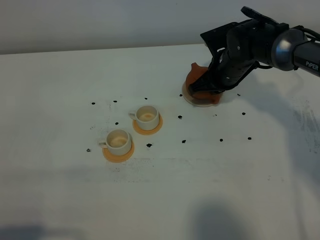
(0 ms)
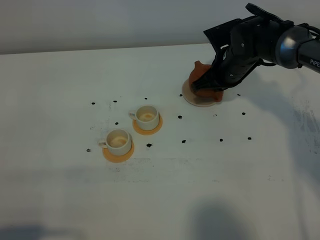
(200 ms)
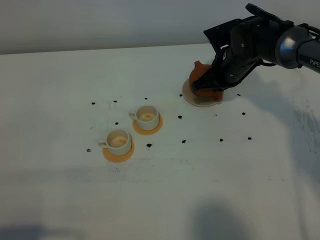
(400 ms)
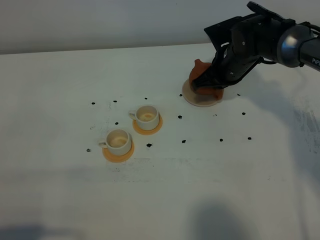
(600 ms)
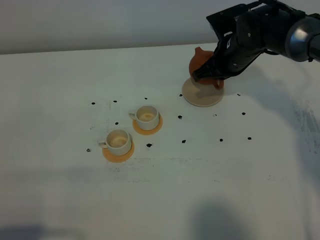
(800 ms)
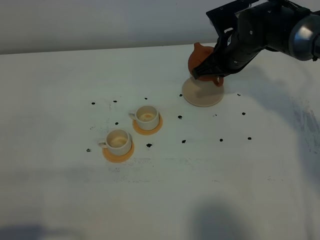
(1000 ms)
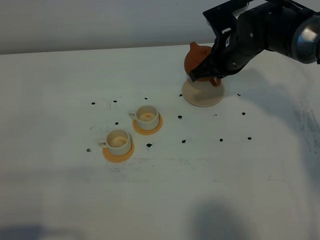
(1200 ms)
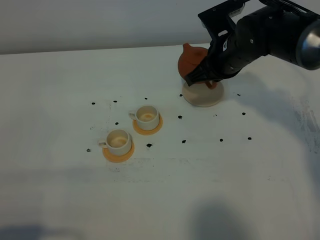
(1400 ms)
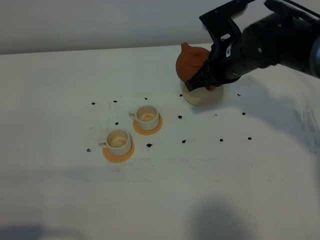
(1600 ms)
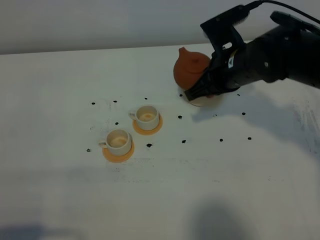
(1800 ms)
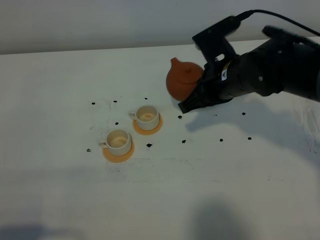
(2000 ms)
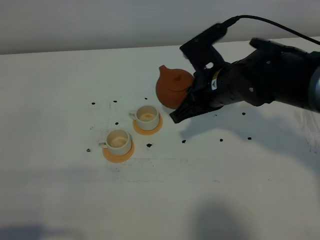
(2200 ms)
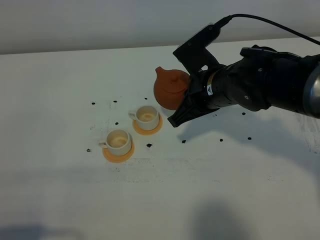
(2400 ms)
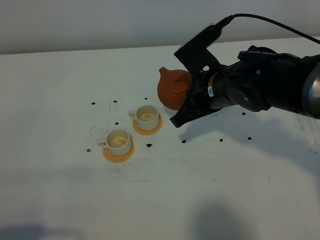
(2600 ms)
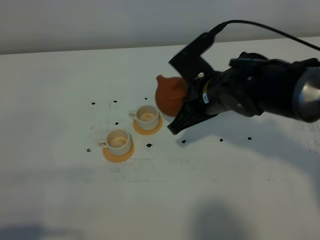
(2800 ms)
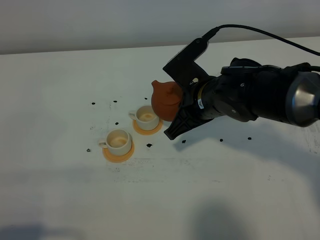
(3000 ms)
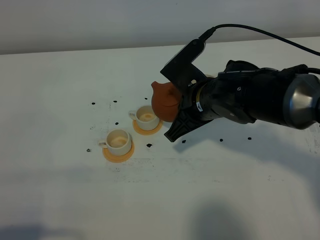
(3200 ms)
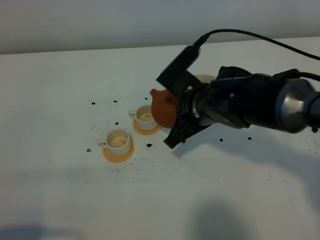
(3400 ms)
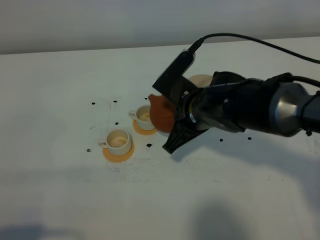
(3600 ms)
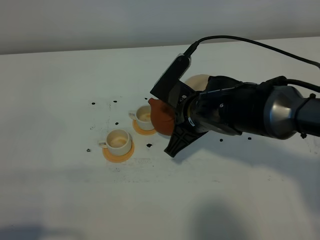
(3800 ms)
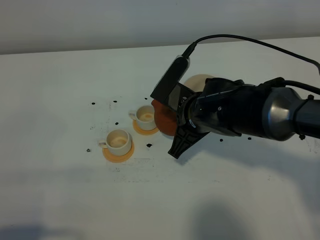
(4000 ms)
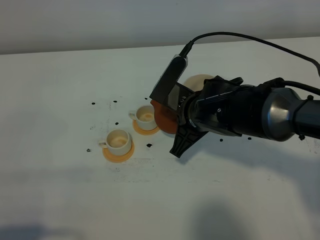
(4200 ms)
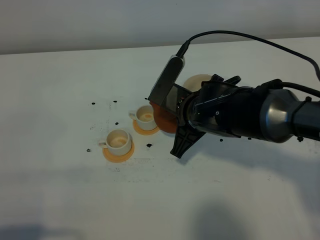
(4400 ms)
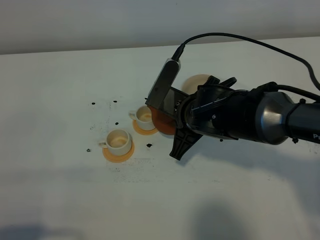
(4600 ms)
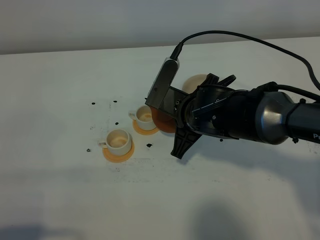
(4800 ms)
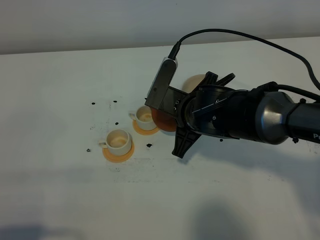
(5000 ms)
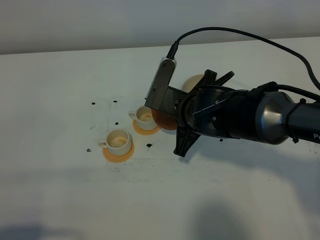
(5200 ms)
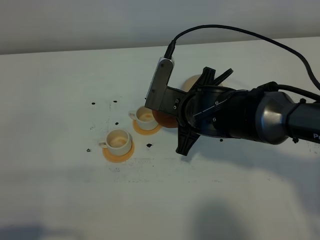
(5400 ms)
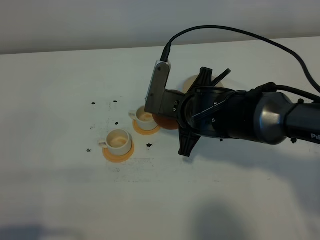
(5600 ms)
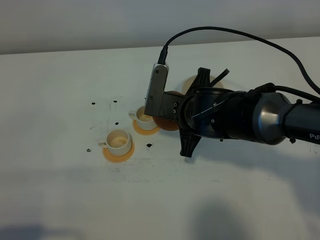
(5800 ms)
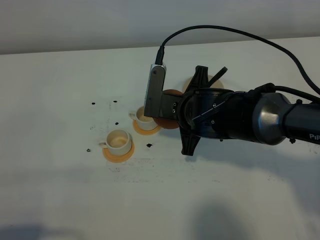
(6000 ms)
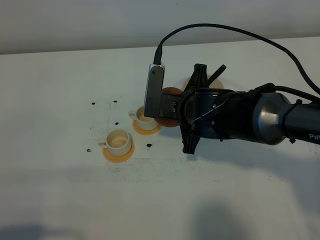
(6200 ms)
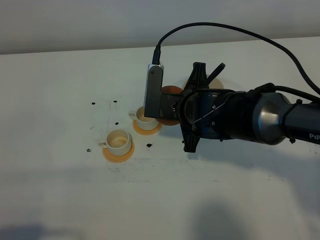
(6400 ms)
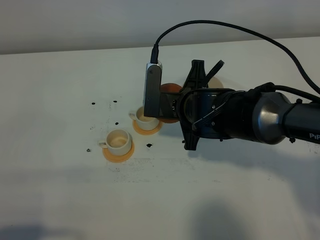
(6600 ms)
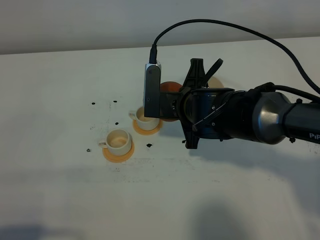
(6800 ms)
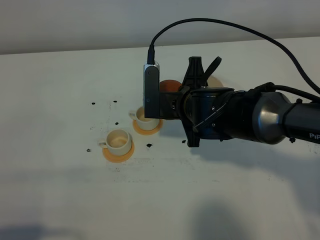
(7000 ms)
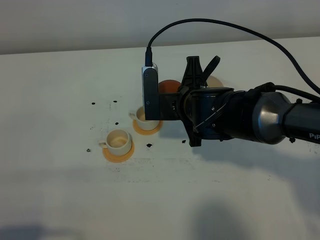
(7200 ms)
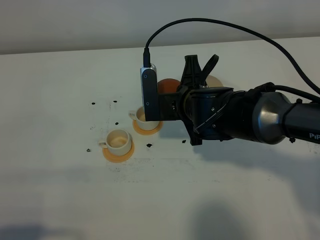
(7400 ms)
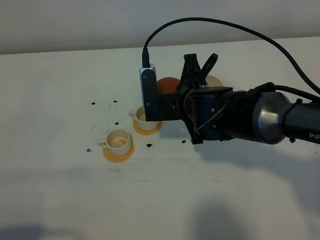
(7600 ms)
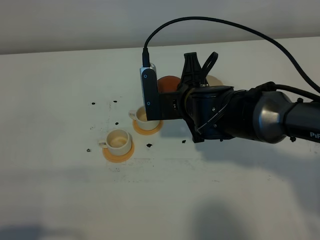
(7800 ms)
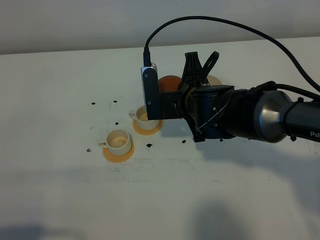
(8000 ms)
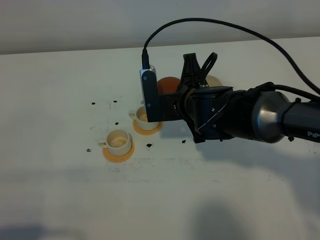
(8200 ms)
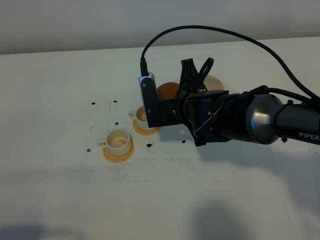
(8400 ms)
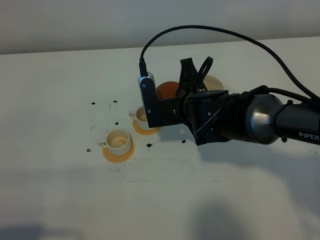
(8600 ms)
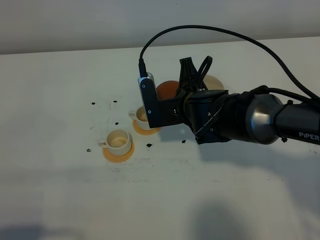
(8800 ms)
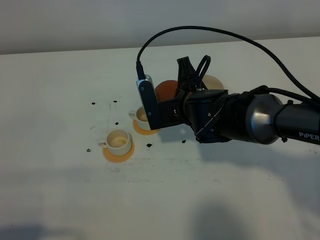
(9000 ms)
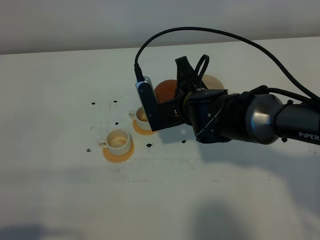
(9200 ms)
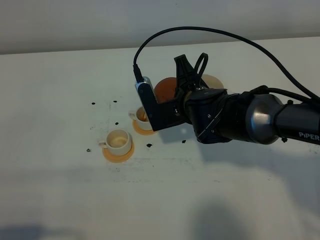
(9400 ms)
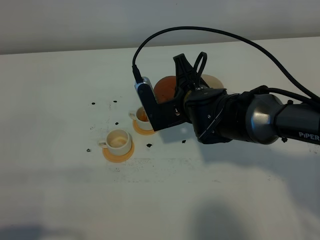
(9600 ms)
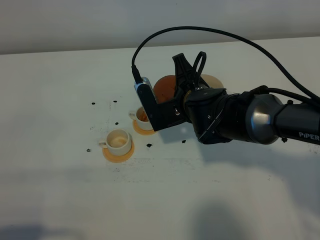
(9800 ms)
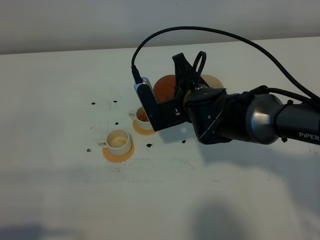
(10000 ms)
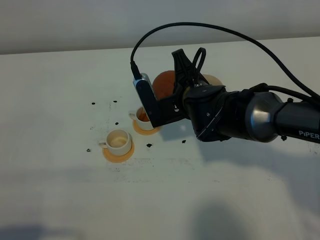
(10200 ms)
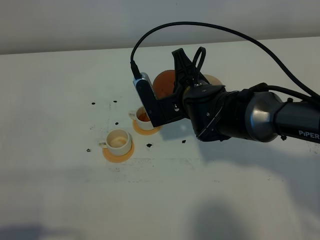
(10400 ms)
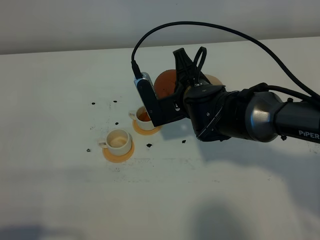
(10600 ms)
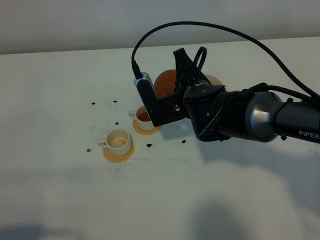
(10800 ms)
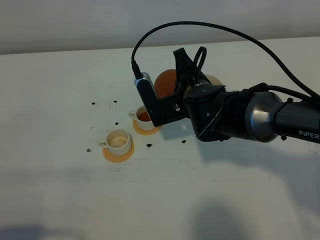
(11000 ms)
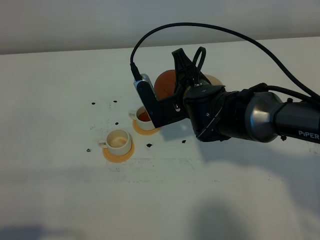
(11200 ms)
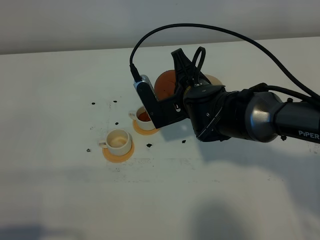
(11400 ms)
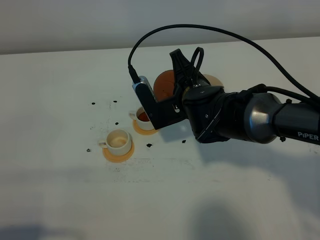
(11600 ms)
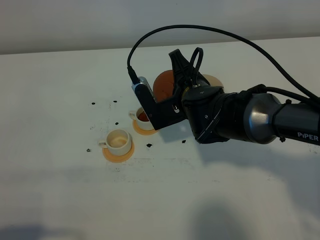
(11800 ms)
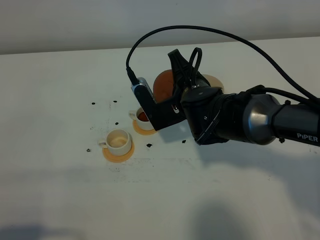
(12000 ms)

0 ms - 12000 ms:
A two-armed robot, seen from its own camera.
Task of the whole recording: grasp the brown teapot and pour the tea into the two white teacups one by one, put the brown teapot back in its original place.
0 ms - 1600 ms: The right gripper moves upward and backward, about 10 cm.
1600 ms - 3000 ms: The right gripper travels to the left and backward by approximately 10 cm.
3000 ms - 4400 ms: There are only small adjustments of the grippers.
6000 ms - 7600 ms: The grippers make only small movements.
7600 ms - 10400 ms: The grippers stay close to where they were, moving slightly.
10400 ms - 12000 ms: The grippers move only a little.

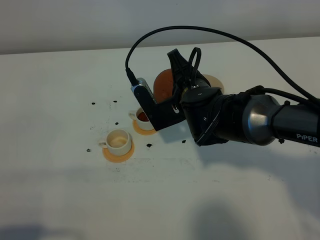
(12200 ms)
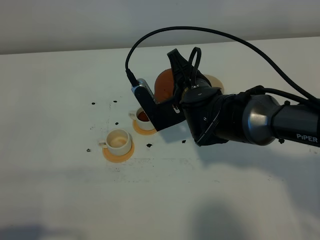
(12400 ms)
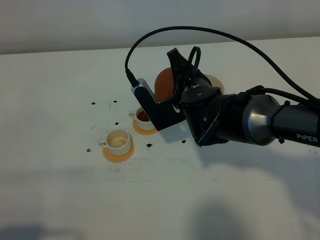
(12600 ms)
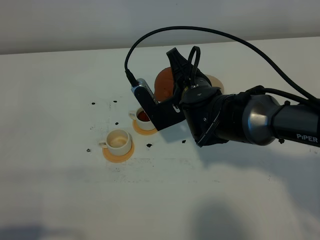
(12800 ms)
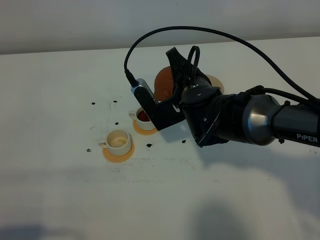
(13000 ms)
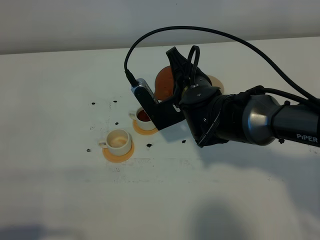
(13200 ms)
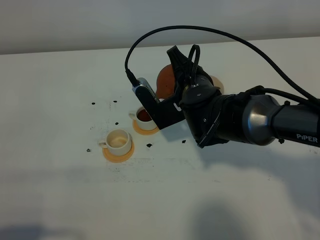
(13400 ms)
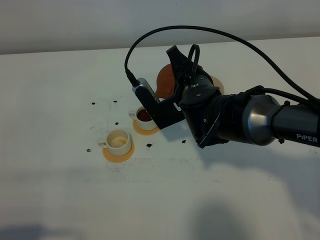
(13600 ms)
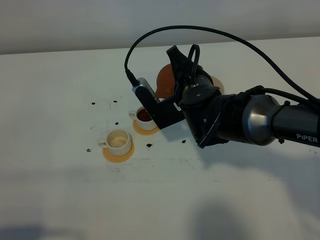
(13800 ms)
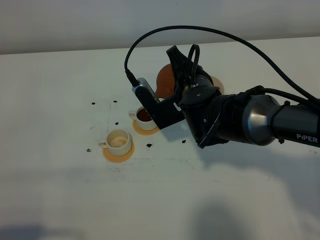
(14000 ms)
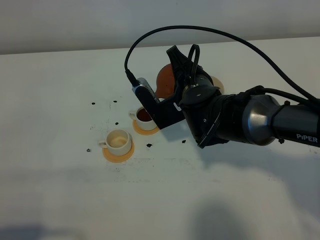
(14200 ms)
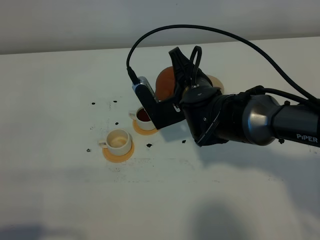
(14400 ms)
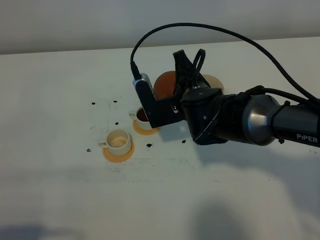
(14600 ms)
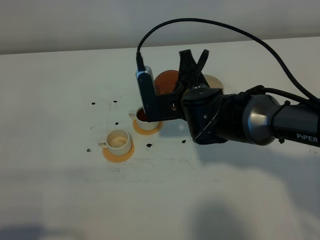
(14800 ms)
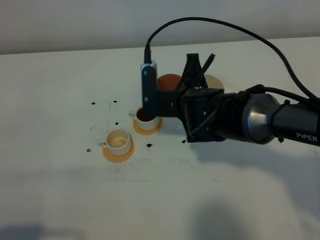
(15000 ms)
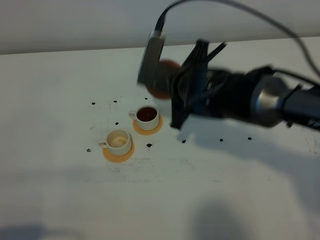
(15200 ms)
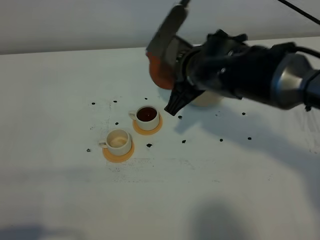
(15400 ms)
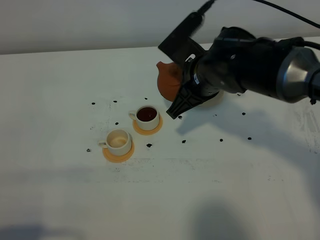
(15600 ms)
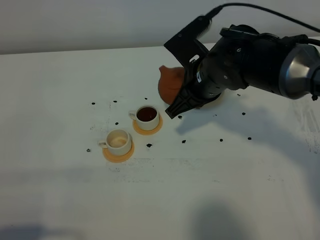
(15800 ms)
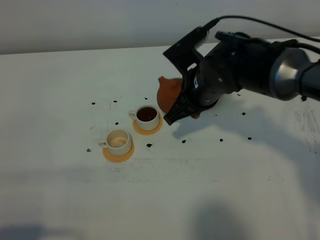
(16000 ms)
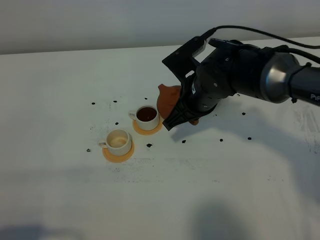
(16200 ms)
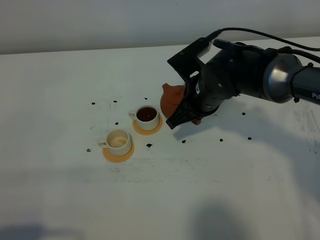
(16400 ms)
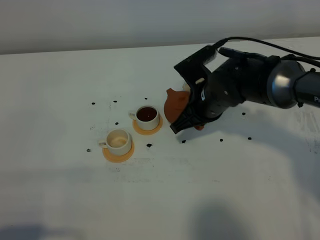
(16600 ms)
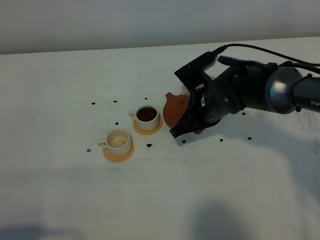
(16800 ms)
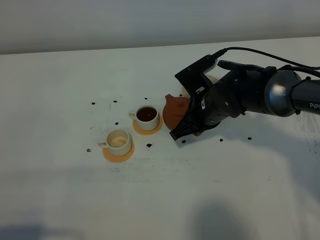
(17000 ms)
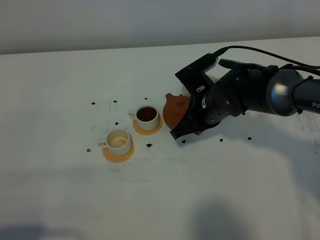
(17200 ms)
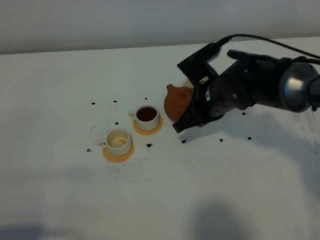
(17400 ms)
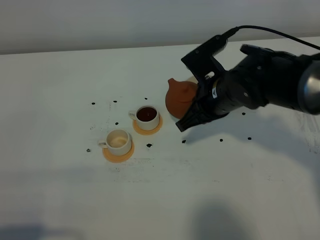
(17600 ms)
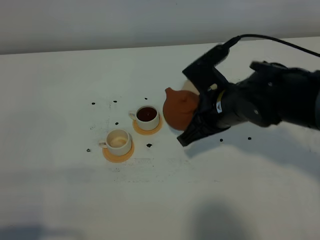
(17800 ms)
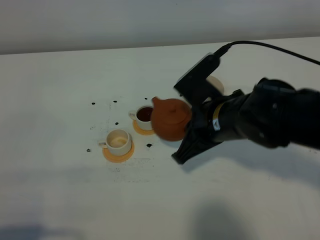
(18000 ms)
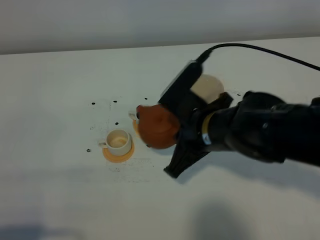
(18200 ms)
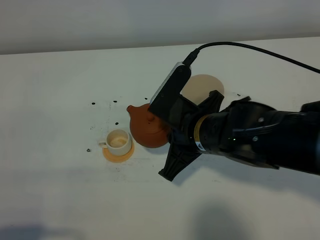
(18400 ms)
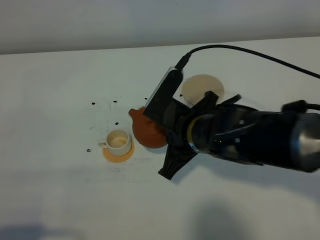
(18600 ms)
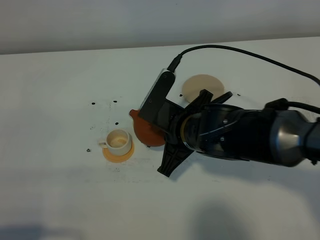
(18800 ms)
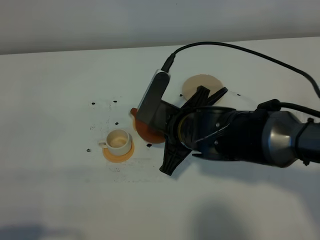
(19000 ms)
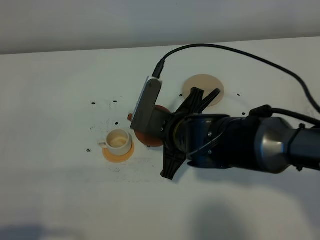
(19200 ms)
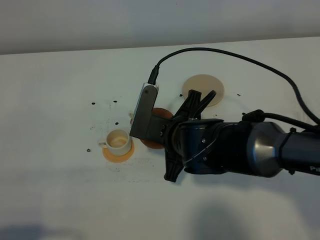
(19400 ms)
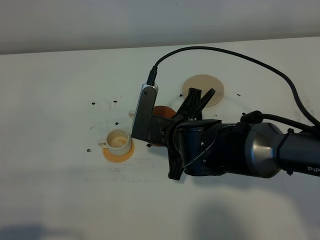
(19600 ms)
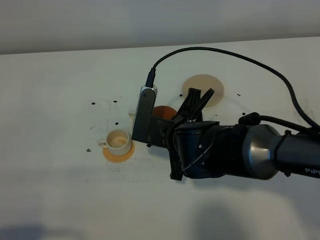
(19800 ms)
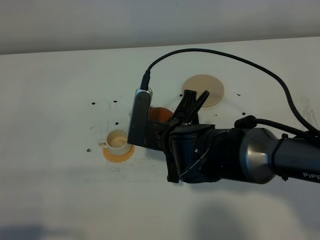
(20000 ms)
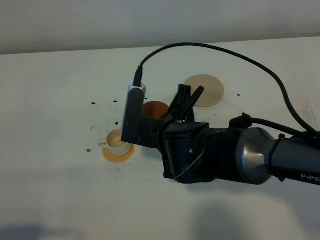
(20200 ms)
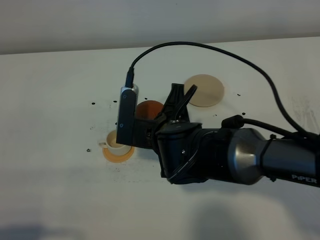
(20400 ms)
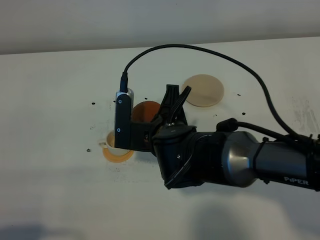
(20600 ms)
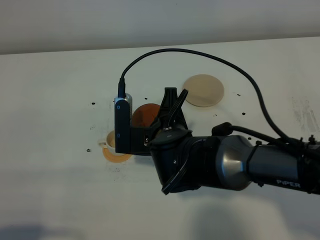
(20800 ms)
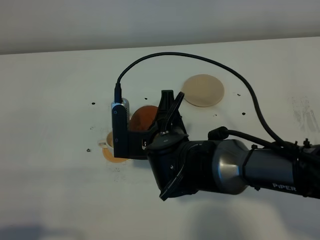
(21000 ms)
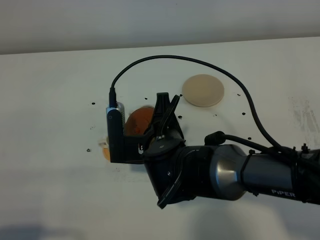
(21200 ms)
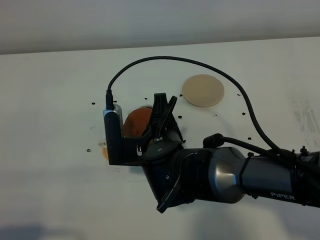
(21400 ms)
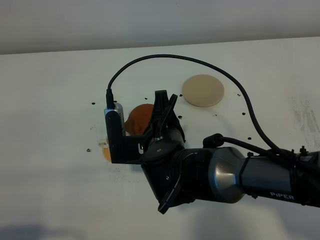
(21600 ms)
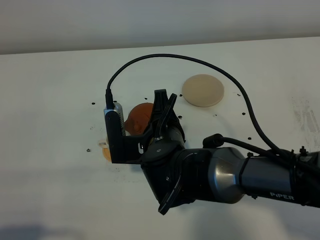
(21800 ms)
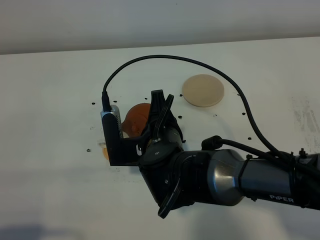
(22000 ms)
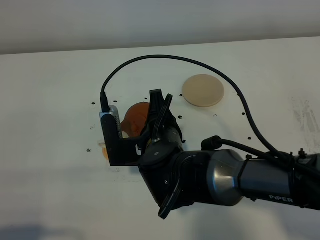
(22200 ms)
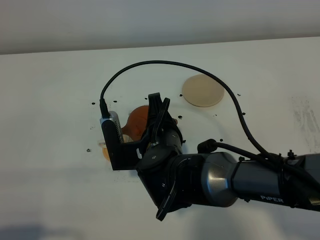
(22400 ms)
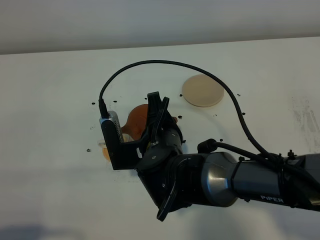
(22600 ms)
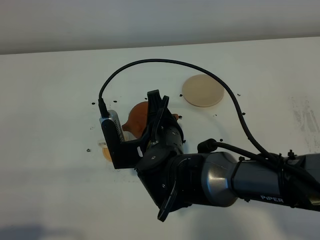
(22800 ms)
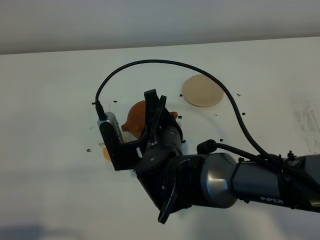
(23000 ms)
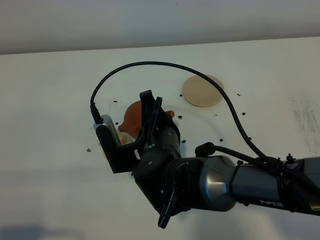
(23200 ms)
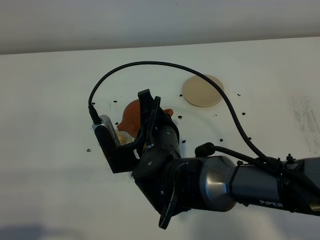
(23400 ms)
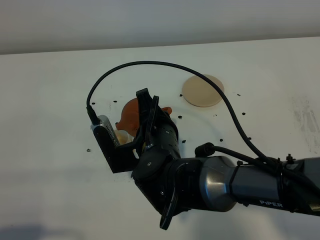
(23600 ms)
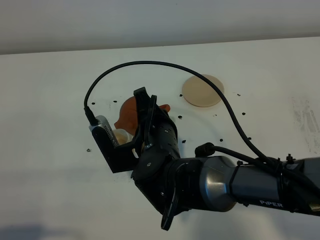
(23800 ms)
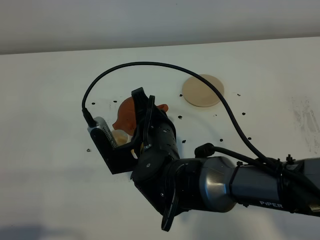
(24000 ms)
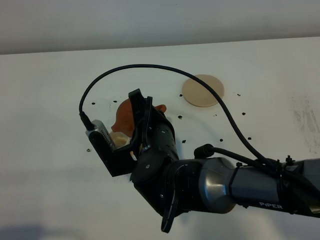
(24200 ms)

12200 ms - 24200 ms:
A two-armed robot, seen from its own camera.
Task of the whole recording: grasp the brown teapot and pour the tea into the two white teacups one by one, put the brown teapot back in its original place.
12200 ms - 13800 ms: Both grippers stay about where they are.
15200 ms - 16600 ms: The right gripper moves downward, roughly 5 cm.
16600 ms - 18200 ms: The right gripper goes some 10 cm backward.
18200 ms - 19800 ms: The right gripper changes place by some 5 cm.
21200 ms - 22600 ms: There are only small adjustments of the grippers.
22600 ms - 24200 ms: The grippers move only a little.
